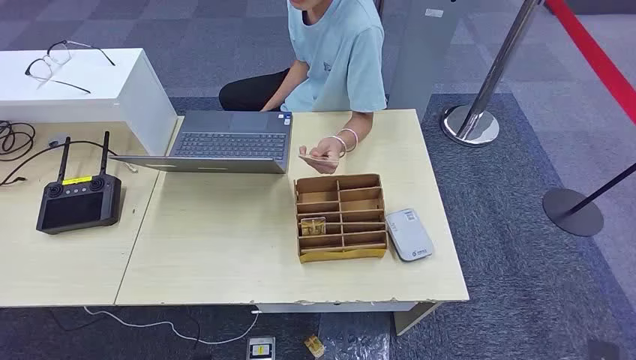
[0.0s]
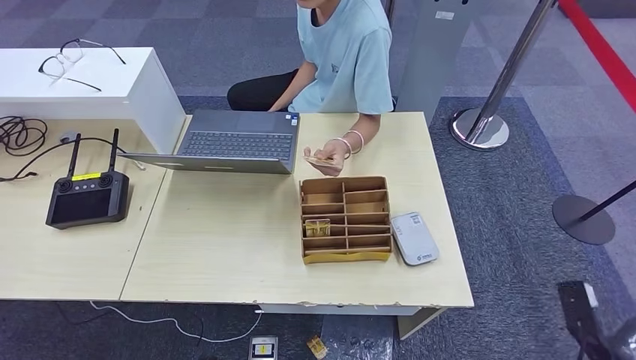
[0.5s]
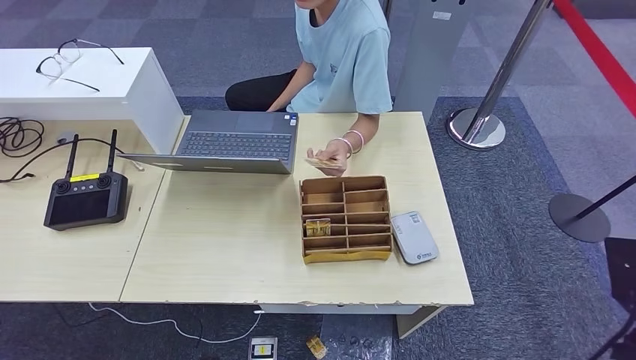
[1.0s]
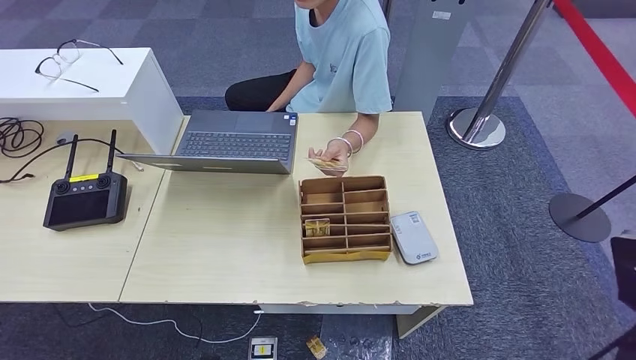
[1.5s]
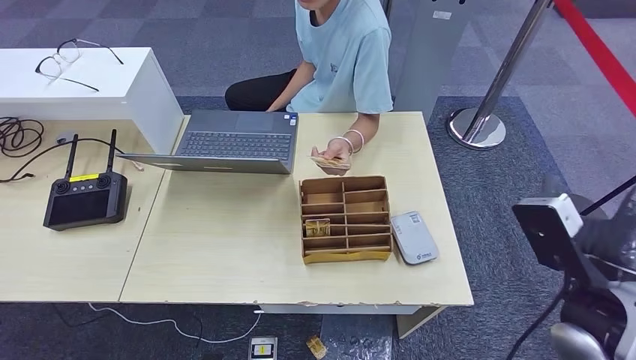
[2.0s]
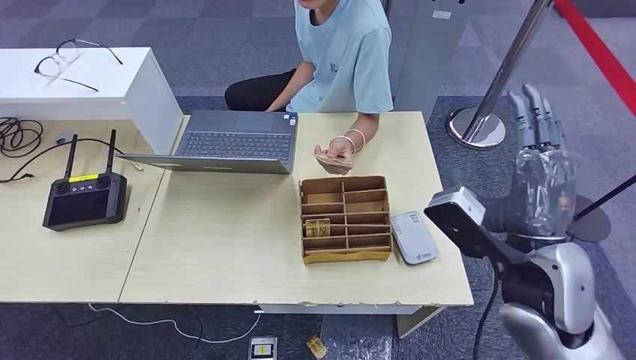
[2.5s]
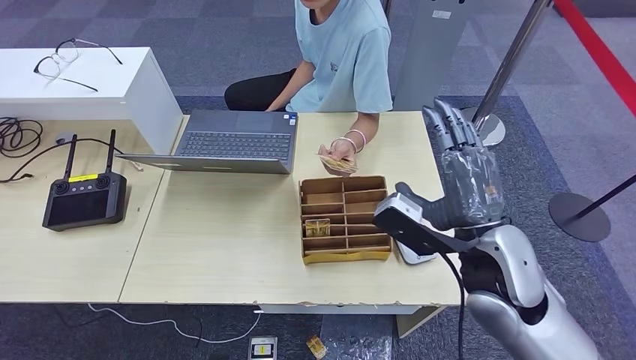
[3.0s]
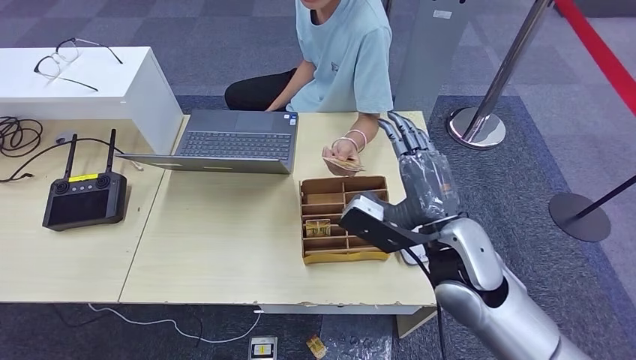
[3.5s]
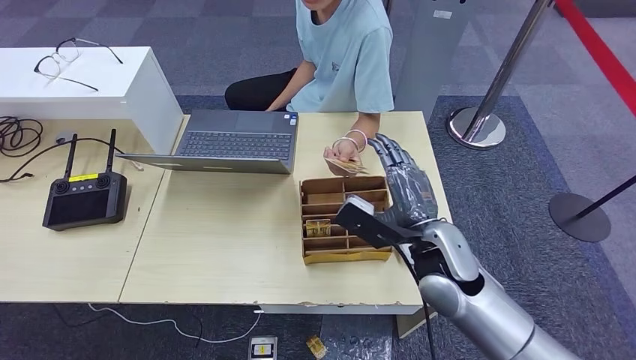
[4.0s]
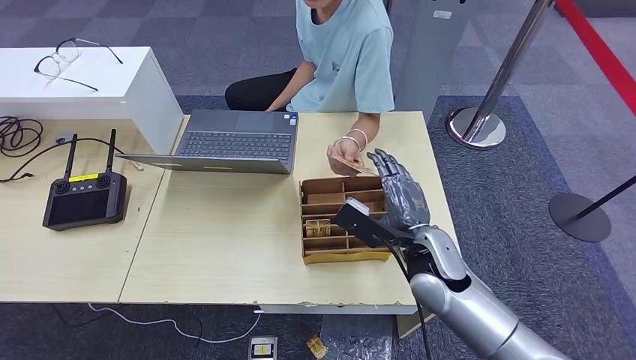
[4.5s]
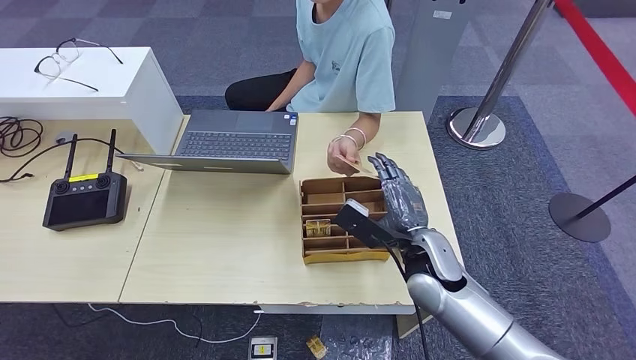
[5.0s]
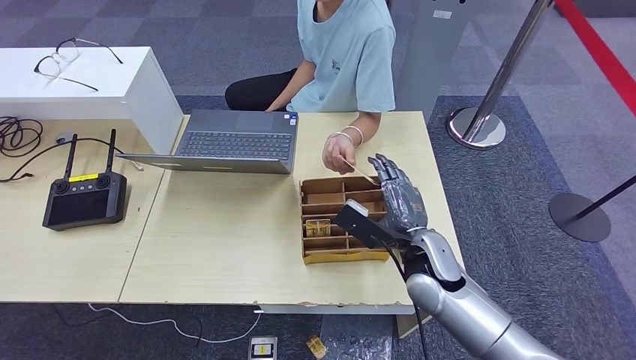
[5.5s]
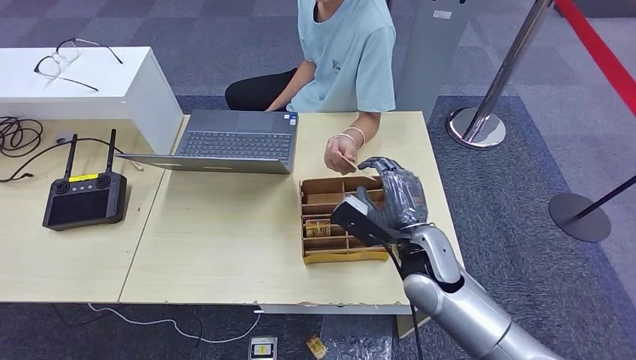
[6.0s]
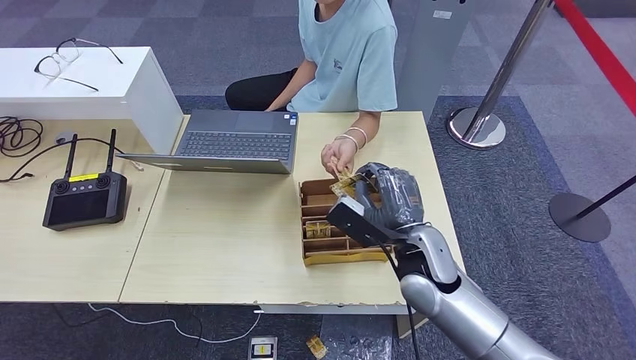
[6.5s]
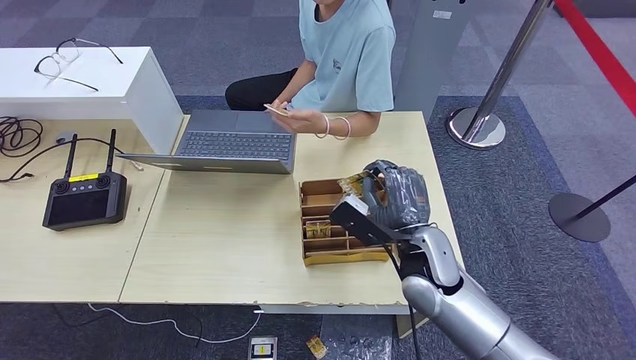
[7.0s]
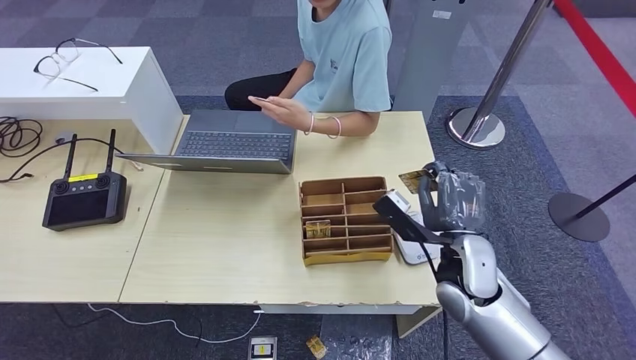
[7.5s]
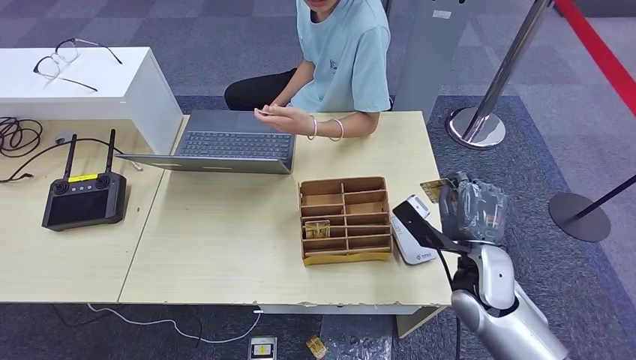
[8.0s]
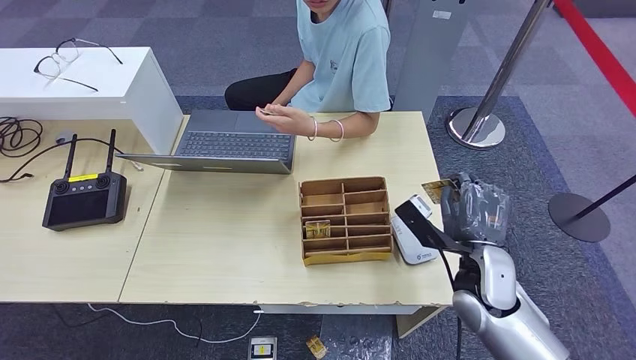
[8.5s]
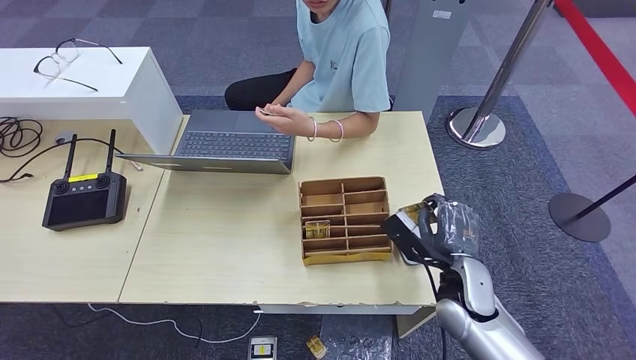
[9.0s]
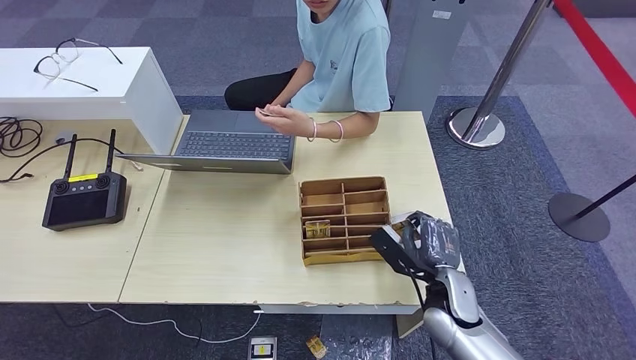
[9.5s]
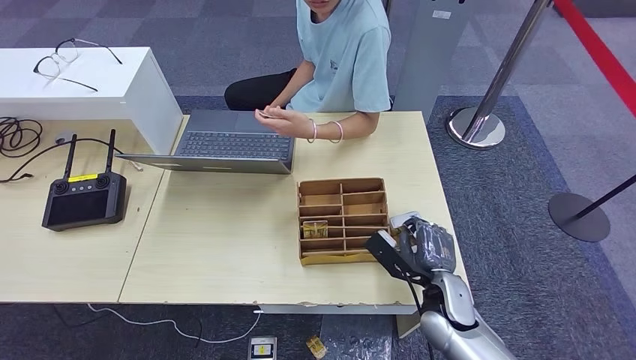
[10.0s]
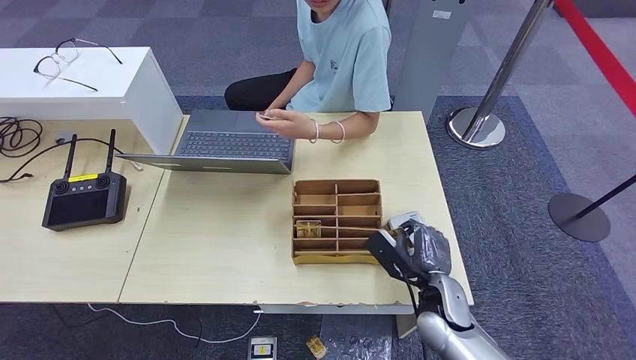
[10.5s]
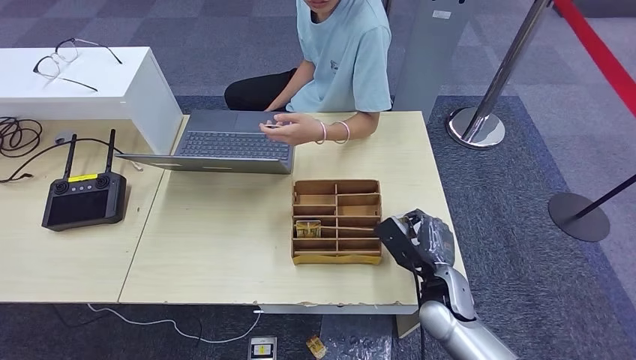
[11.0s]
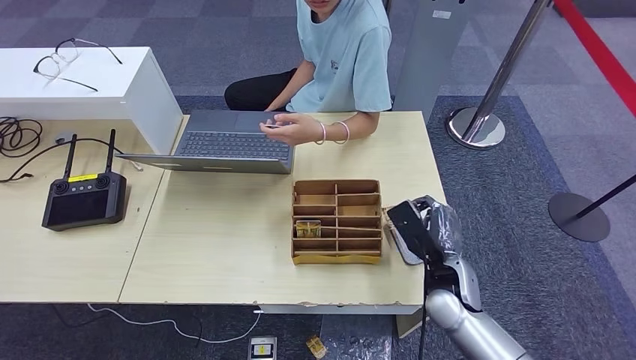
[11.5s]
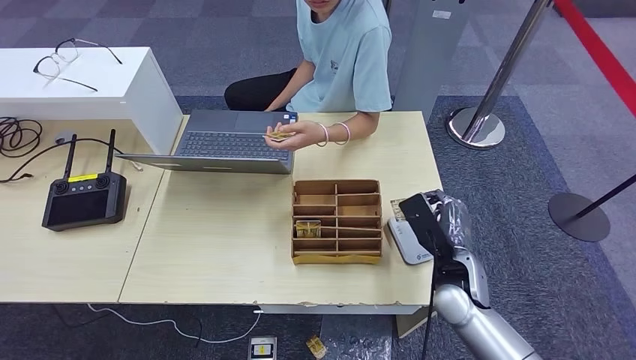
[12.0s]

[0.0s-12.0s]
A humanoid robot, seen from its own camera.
Step, 0.0s to 8.0s: Take the ID card from the person's hand.
2.0s to 4.0s: The right hand shifts about 20 cm to the left, forward and downward.
4.0s to 6.0s: The hands move only a little.
6.0s to 8.0s: The right hand shifts some 10 cm to the right.
8.0s to 10.0s: The right hand goes roughly 10 cm downward.
10.0s to 12.0s: The right hand moves some 5 cm.

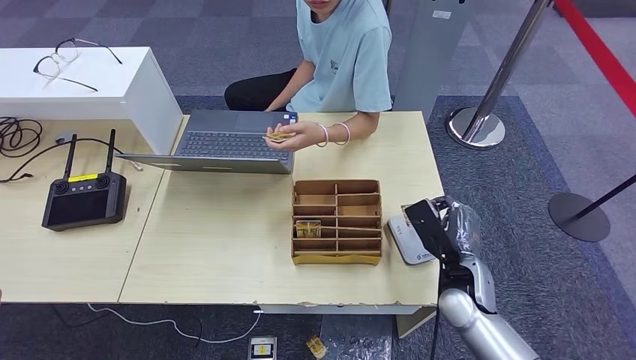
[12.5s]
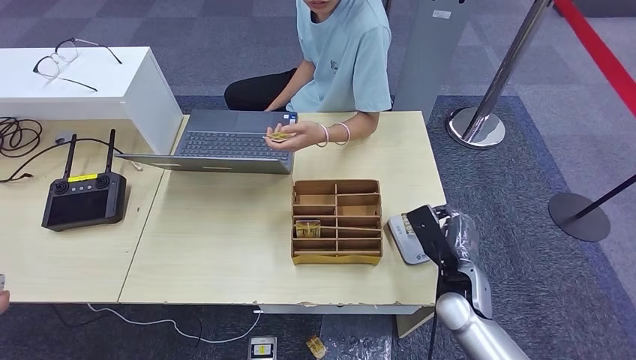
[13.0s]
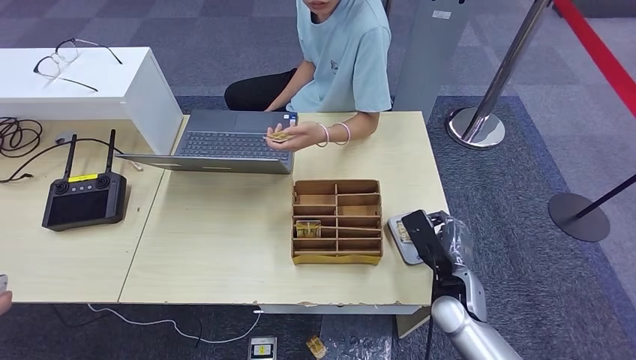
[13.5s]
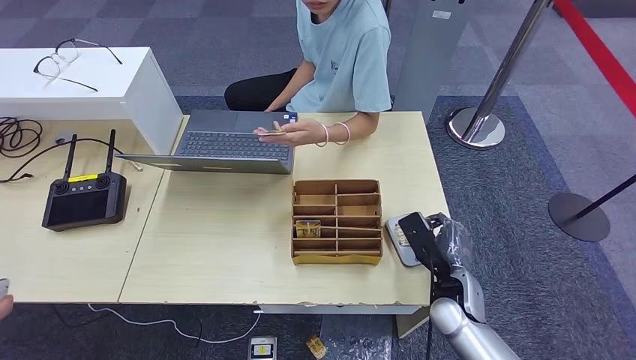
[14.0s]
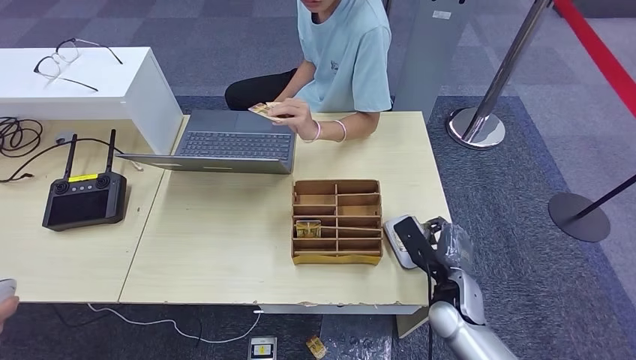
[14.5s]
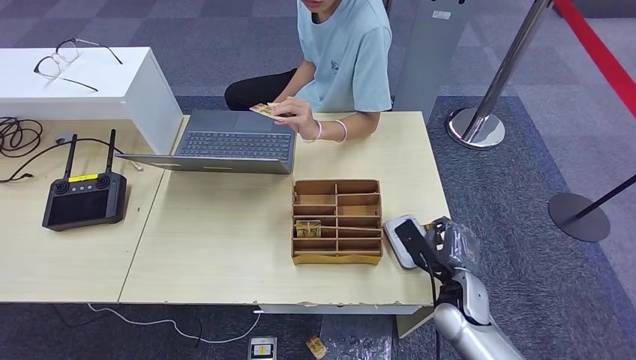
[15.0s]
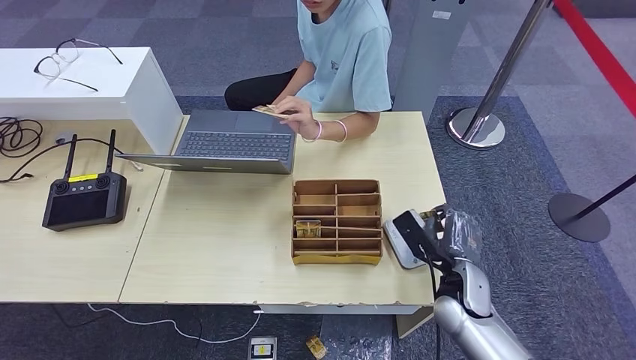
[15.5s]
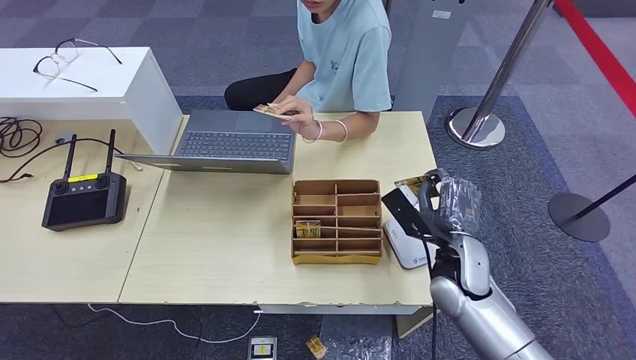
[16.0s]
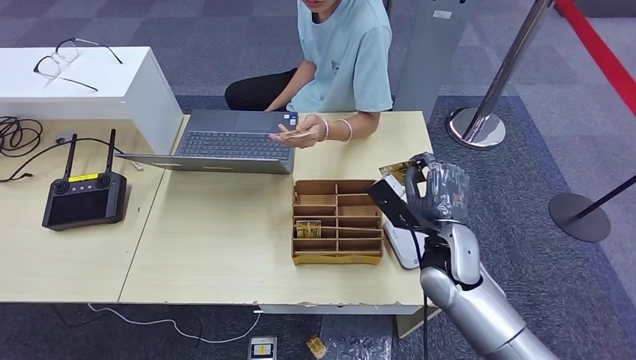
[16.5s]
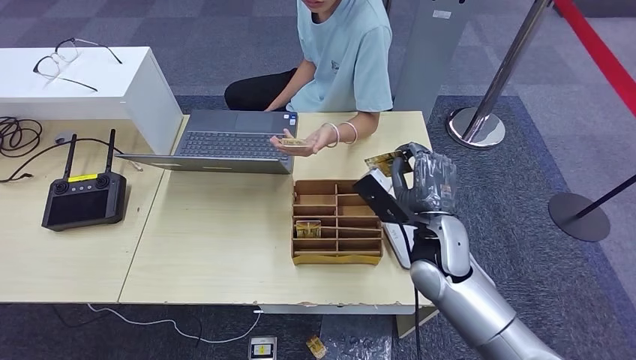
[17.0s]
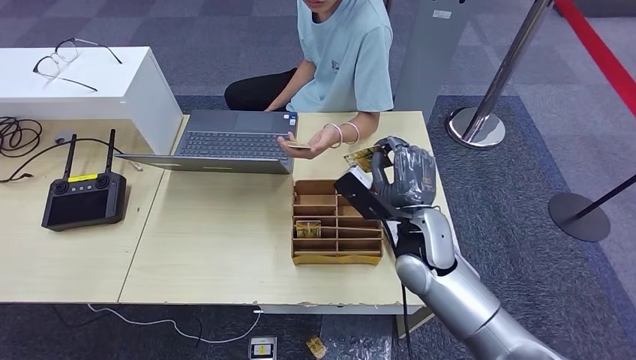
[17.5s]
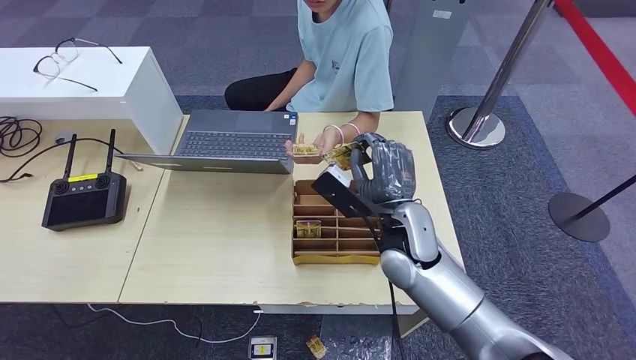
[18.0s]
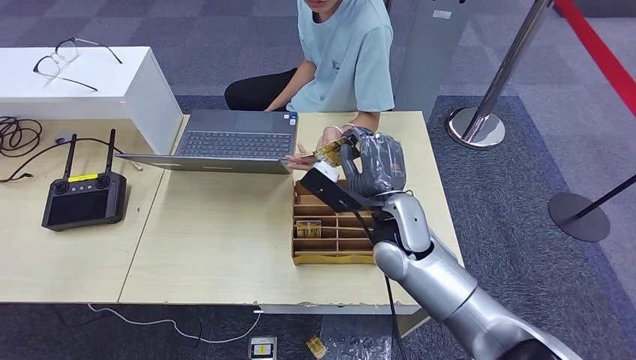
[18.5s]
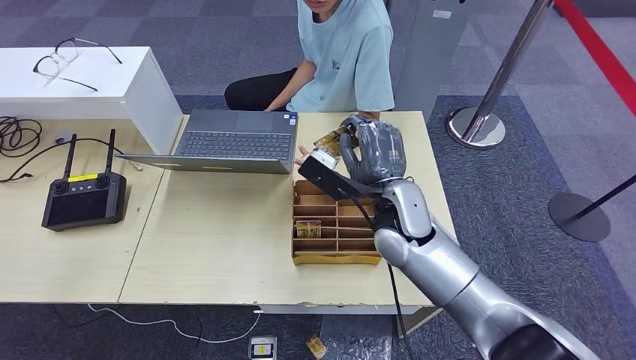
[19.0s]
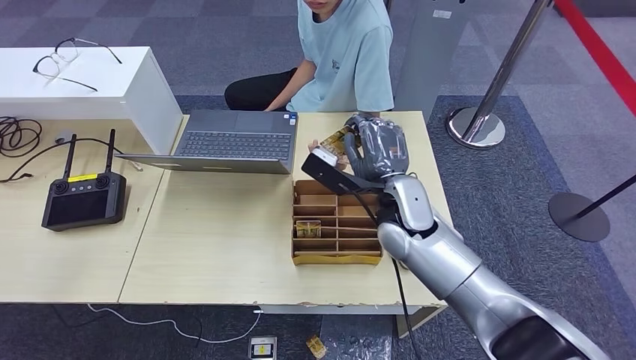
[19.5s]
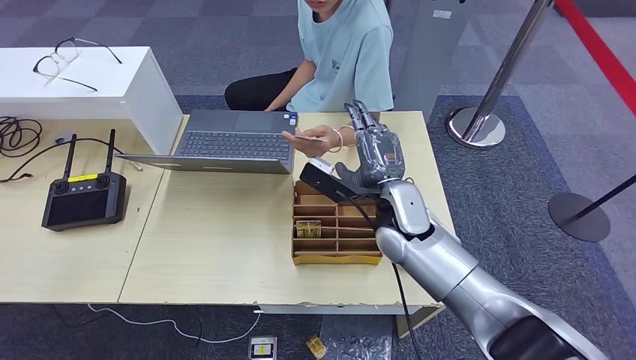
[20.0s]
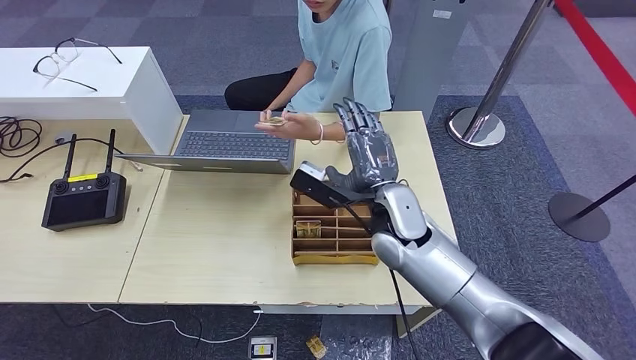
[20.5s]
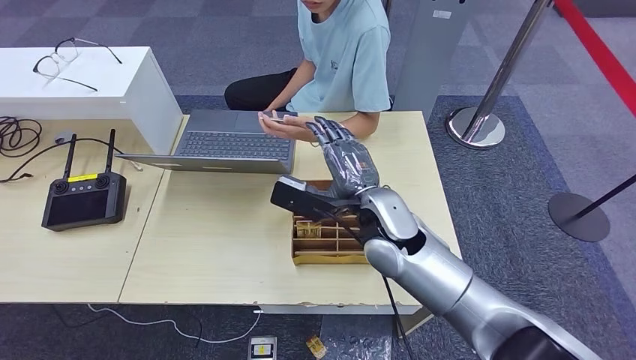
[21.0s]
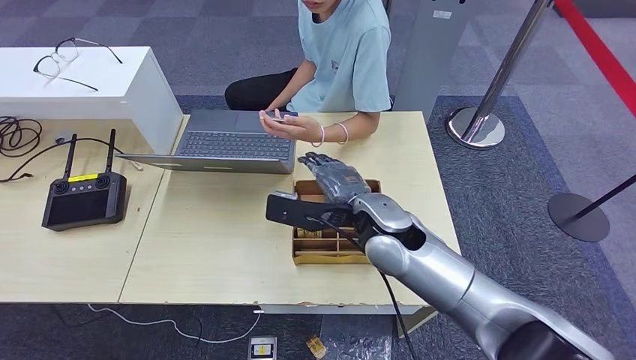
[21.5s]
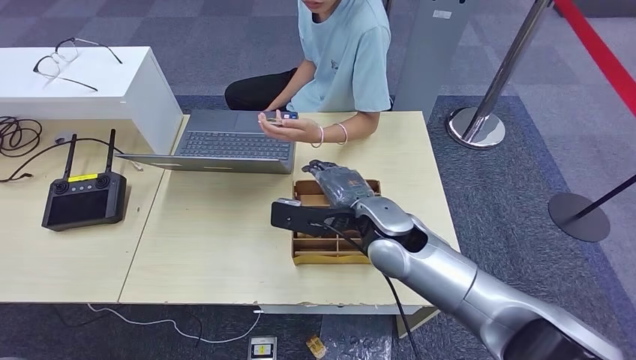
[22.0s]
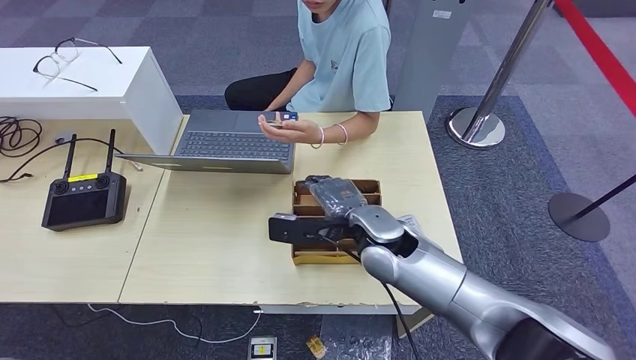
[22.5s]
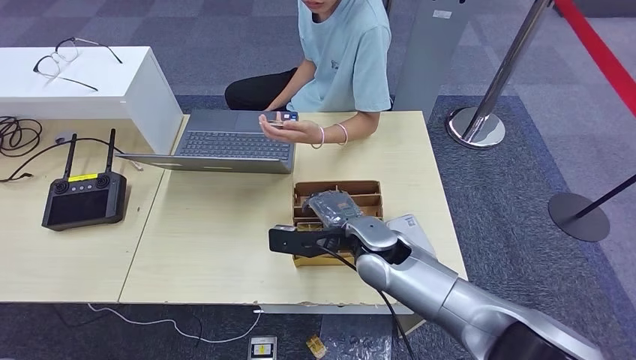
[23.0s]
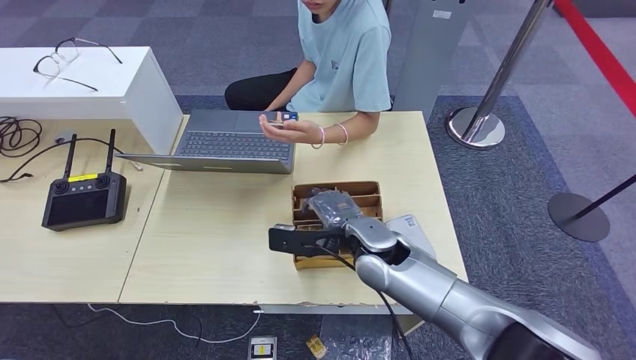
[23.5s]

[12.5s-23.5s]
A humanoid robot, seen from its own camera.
Step, 13.5s to 21.0s: Hand the ID card to the person.
12.5s to 14.5s: The hands make only small movements.
14.5s to 16.0s: The right hand travels upward by approximately 10 cm.
16.0s to 18.0s: The right hand heads to the left and upward, covering some 10 cm.
18.0s to 20.0s: The hands stay close to where they were, moving slightly.
20.0s to 21.5s: The right hand ends up about 5 cm from where it was.
21.5s to 23.5s: The right hand is displaced downward by approximately 5 cm.
